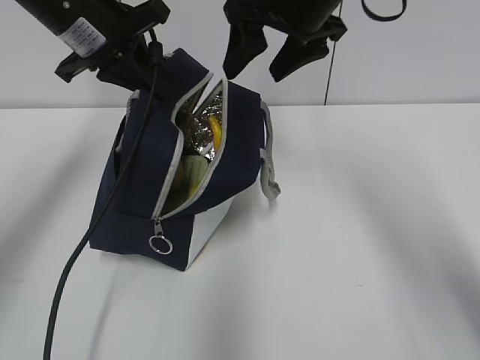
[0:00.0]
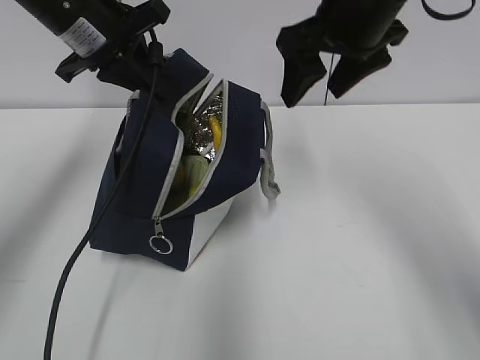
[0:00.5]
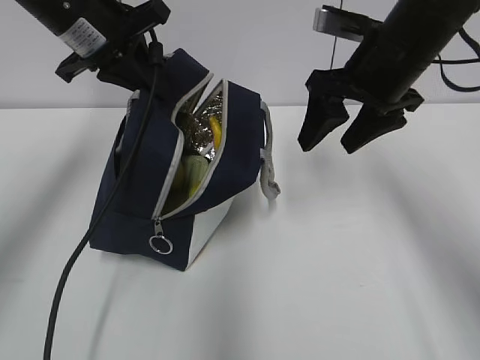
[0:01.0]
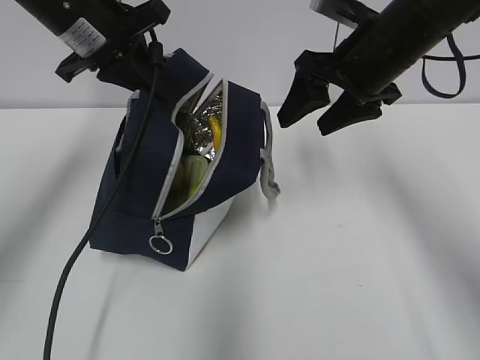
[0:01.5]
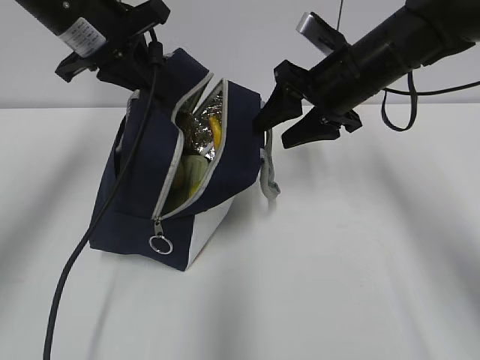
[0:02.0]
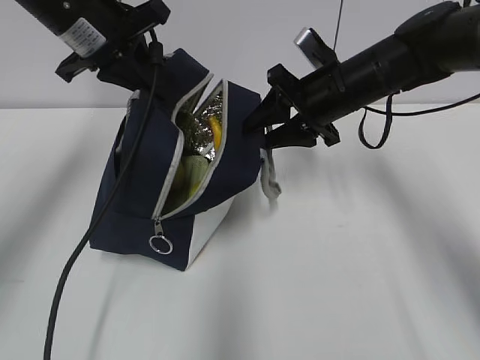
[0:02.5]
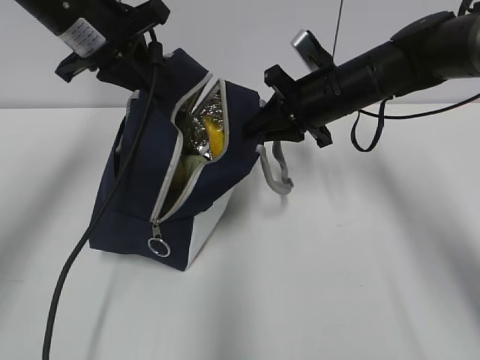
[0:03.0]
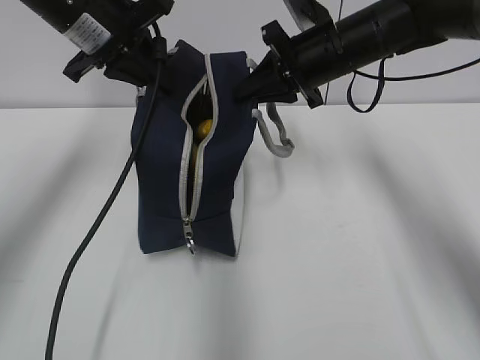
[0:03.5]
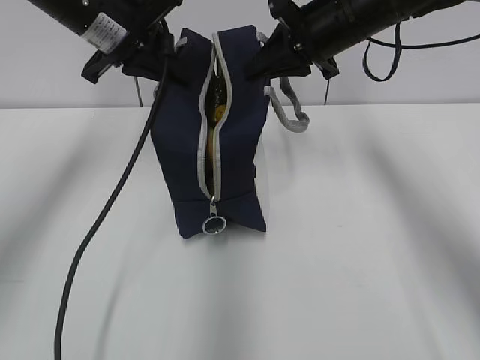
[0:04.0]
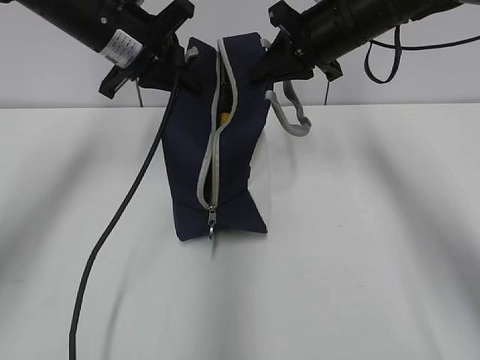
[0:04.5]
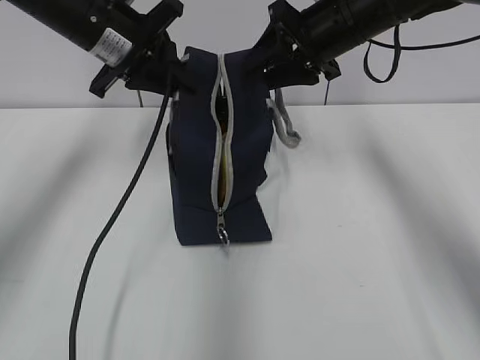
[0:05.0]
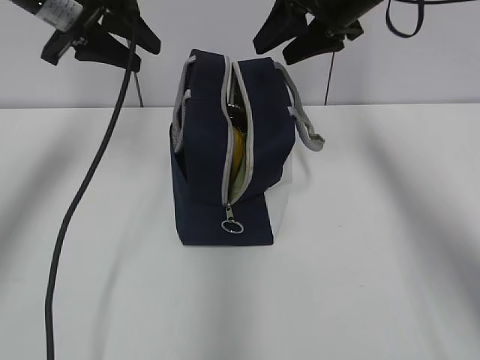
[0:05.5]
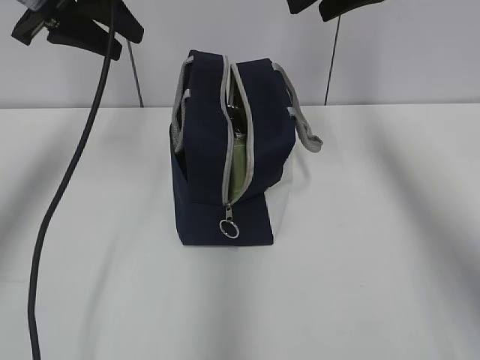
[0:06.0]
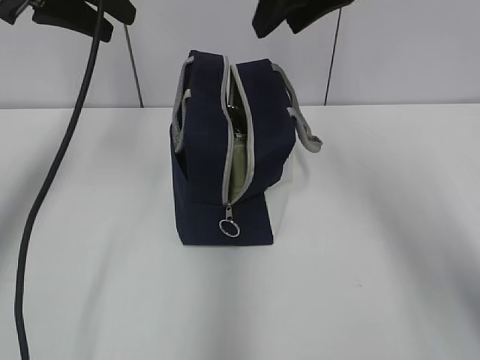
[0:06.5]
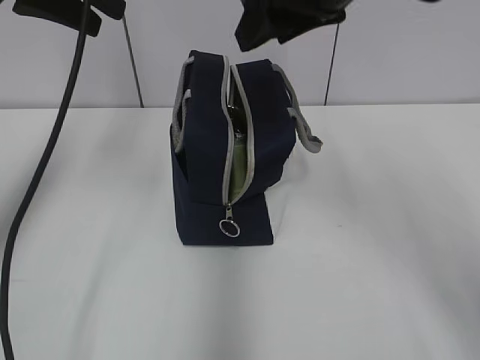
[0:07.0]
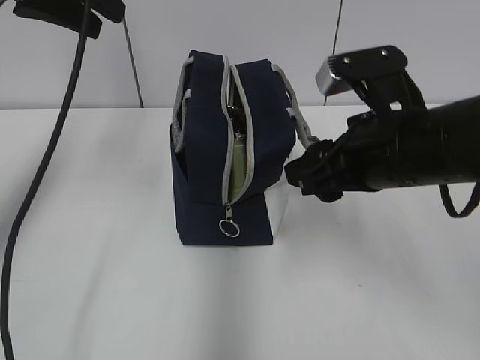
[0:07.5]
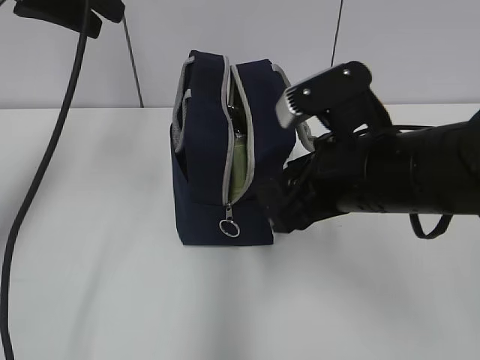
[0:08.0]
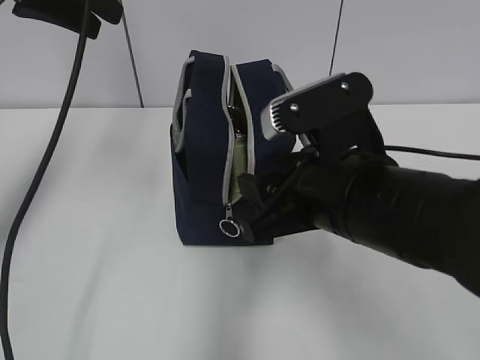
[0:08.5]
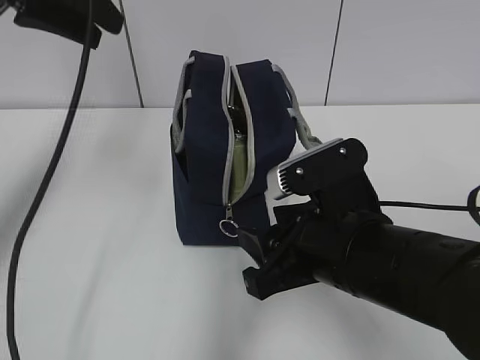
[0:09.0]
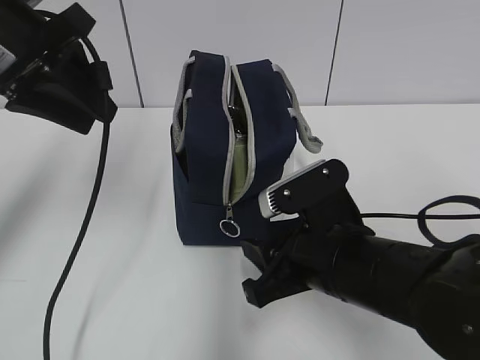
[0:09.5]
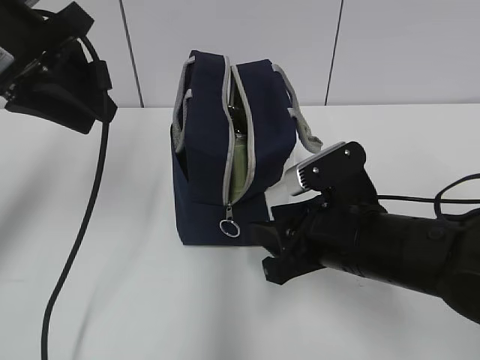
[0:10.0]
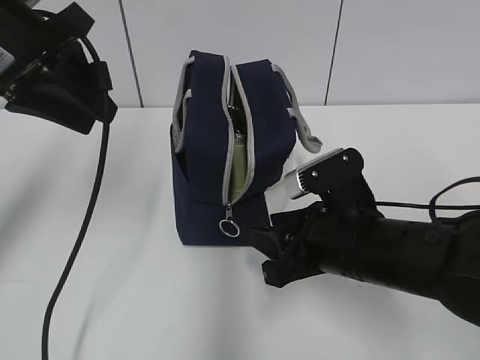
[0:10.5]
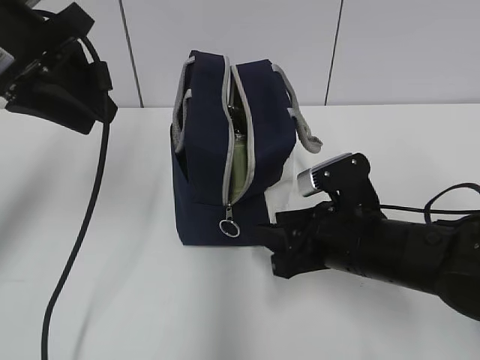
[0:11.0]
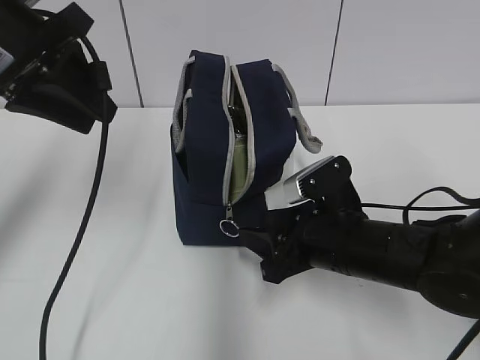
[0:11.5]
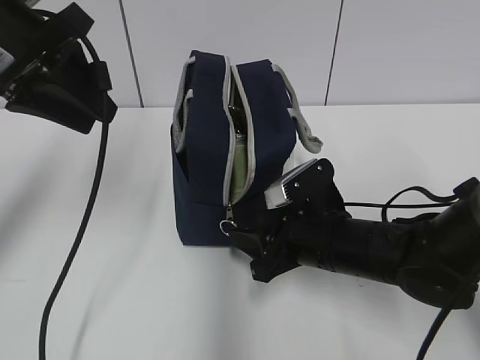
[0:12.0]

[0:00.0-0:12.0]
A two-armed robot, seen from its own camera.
Step, 0:00.0 to 0:03.0: Grab the lunch bag with your right hand.
Step, 0:03.5 to 0:05.0: Move the lunch bag to the right.
0:00.0 to 0:02.0: The right gripper goes roughly 10 cm downward and to the right.
0:02.0 to 0:04.0: The right gripper changes place by roughly 5 cm, and closes its fingers.
0:04.0 to 0:06.0: The right gripper goes roughly 10 cm upward, and opens its fingers. The left gripper heads to the left, covering roughly 5 cm, and opens up.
0:06.0 to 0:08.0: The right gripper shifts approximately 25 cm backward and downward, while the left gripper moves approximately 5 cm.
0:08.0 to 0:10.0: Both grippers move downward, about 5 cm.
0:10.0 to 0:12.0: The right gripper heads downward, covering about 5 cm.

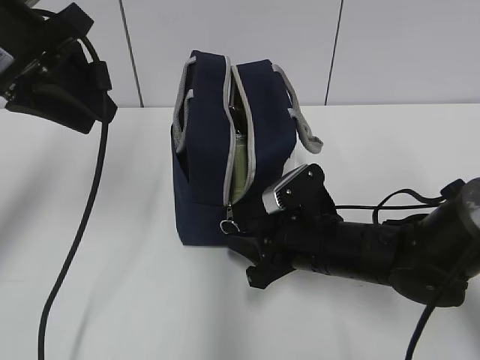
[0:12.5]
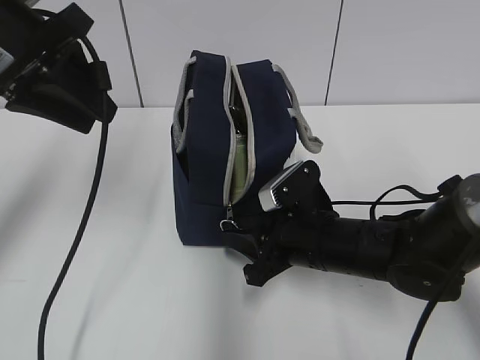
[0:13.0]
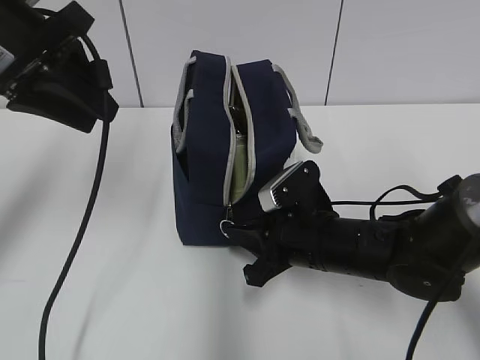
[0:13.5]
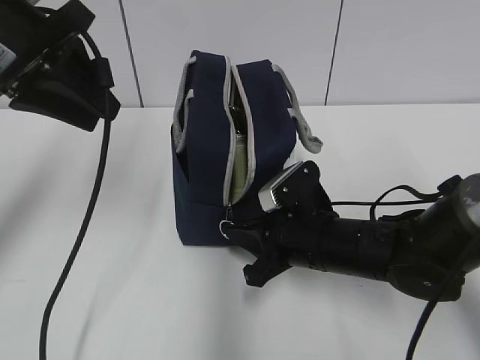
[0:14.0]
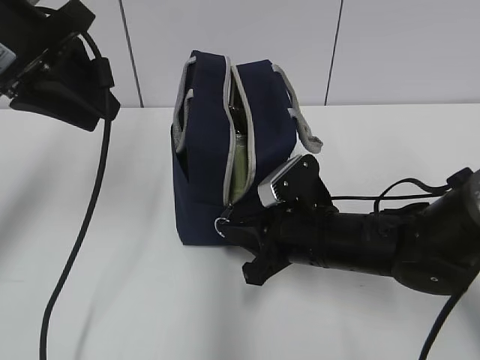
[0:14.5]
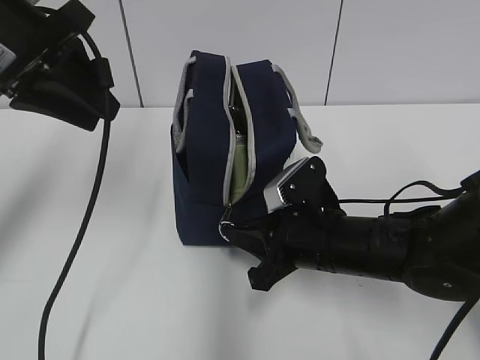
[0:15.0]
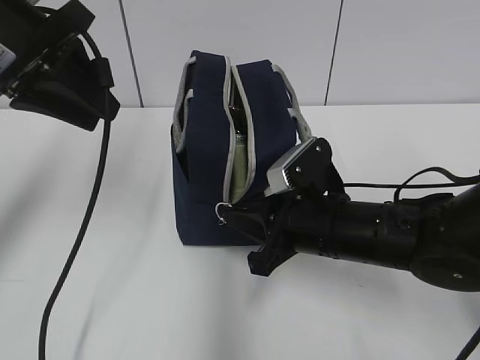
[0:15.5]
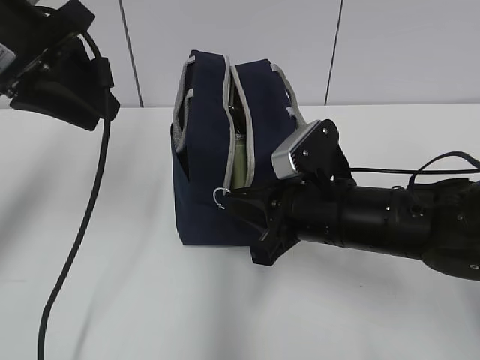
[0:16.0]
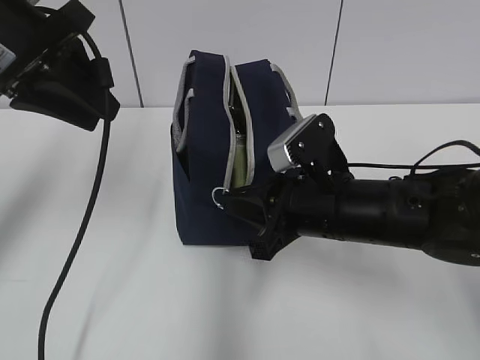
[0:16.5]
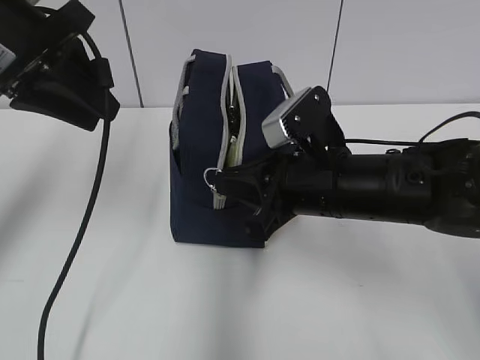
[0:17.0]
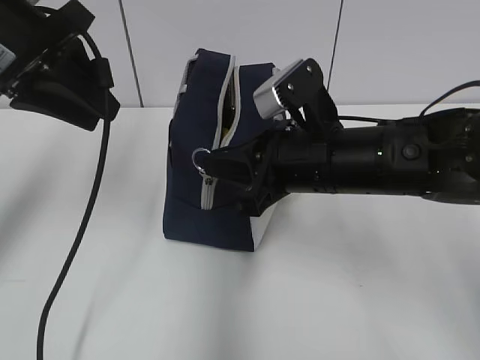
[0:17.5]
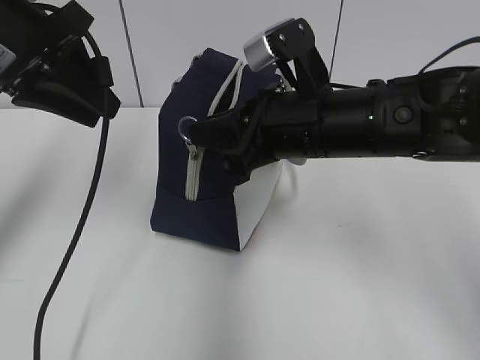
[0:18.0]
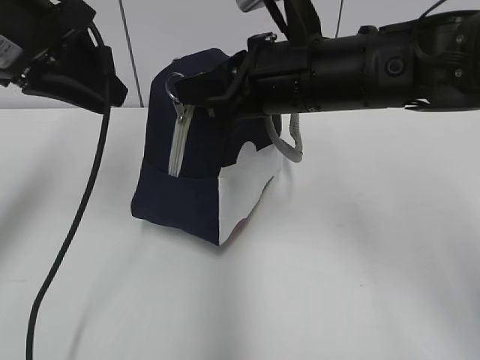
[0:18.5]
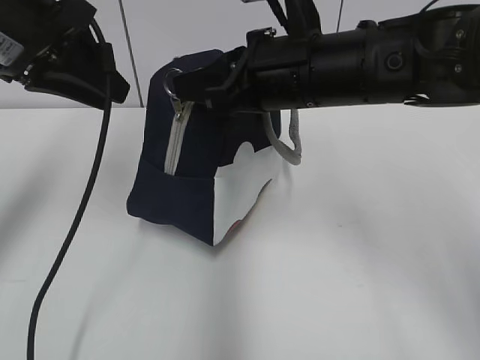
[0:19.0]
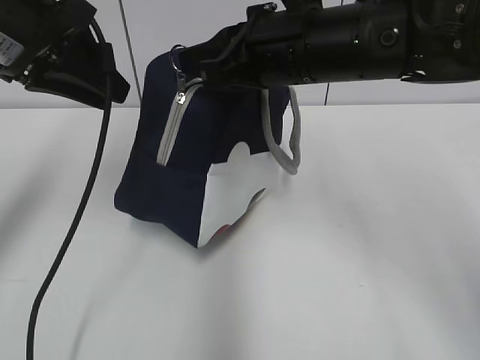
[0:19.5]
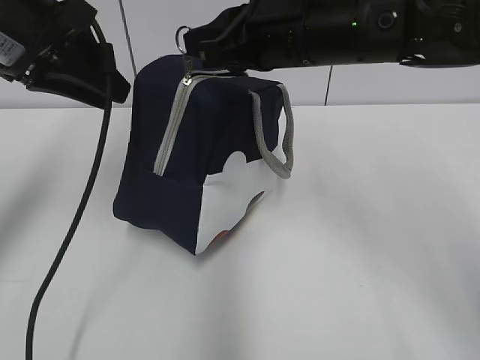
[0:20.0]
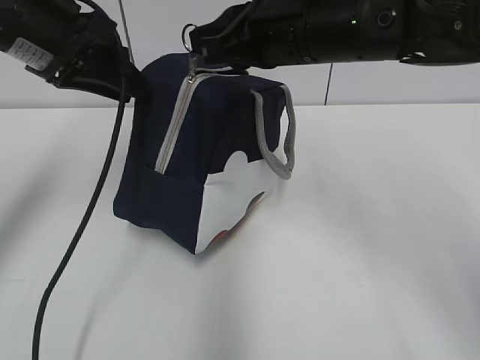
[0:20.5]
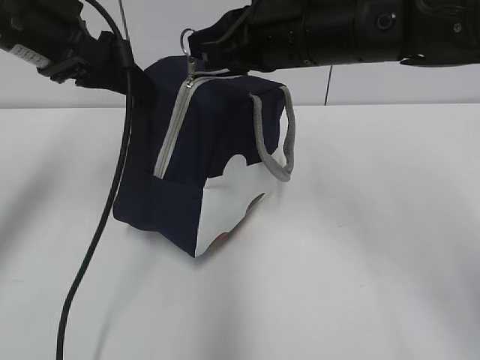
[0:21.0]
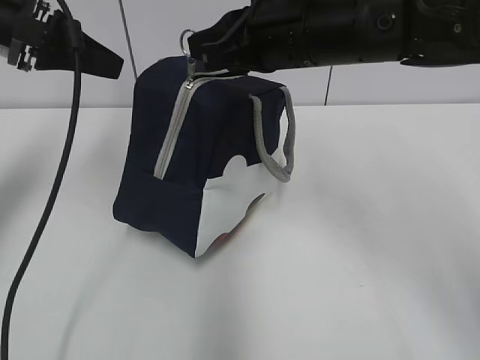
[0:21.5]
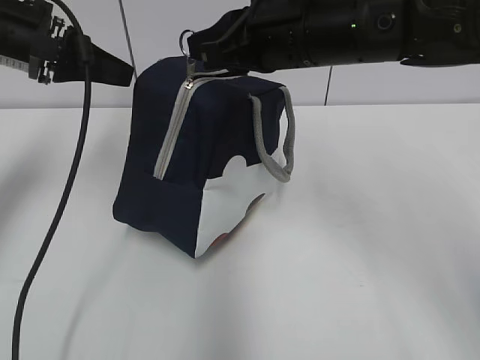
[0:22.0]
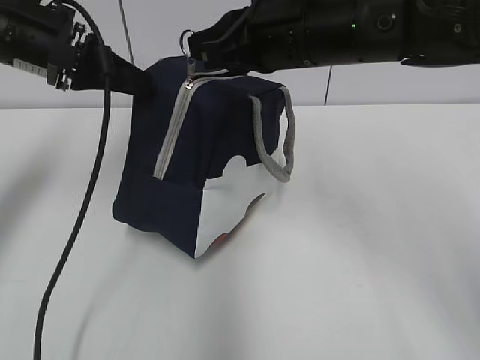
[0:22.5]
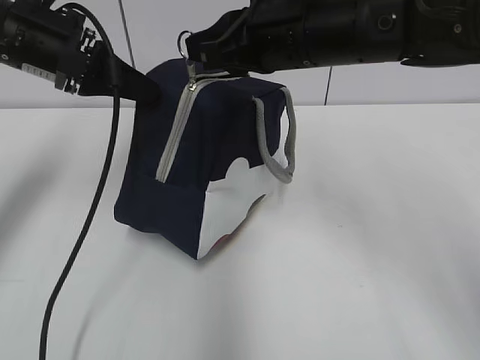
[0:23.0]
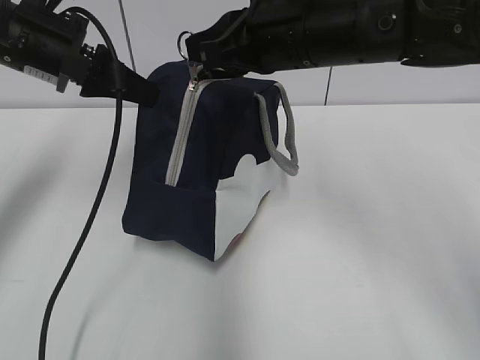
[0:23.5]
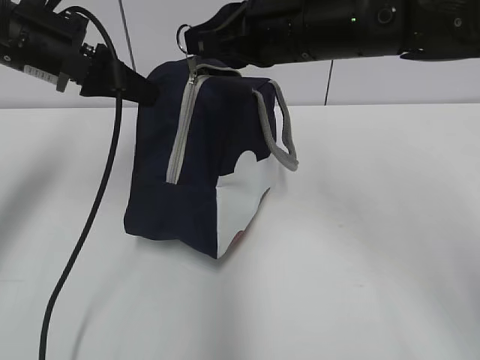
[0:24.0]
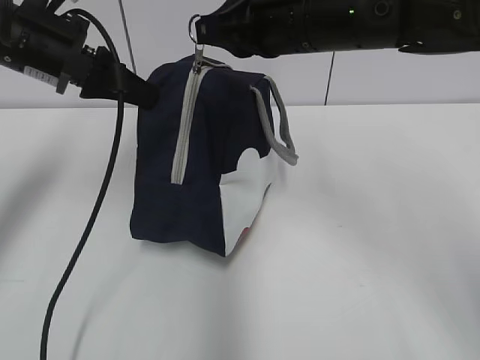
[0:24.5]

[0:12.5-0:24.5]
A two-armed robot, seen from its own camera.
0:12.5 to 0:14.5: The right gripper closes its fingers.
0:14.5 to 0:16.5: The right gripper goes some 5 cm upward.
0:16.5 to 0:18.5: The right gripper shifts approximately 10 cm upward.
0:22.5 to 0:24.5: The left gripper closes up.

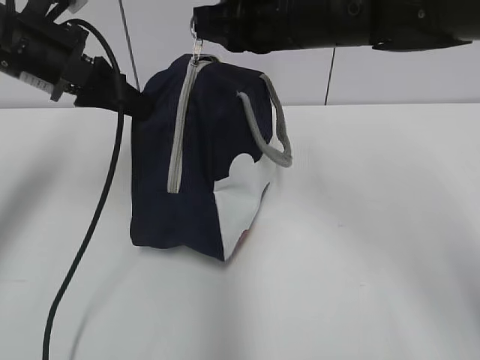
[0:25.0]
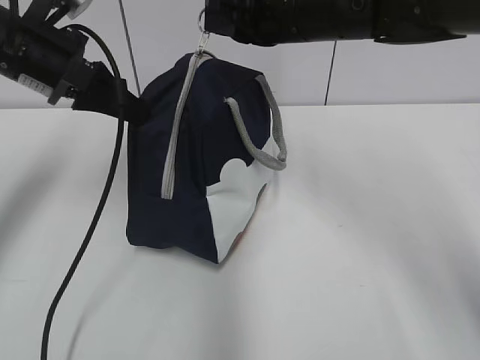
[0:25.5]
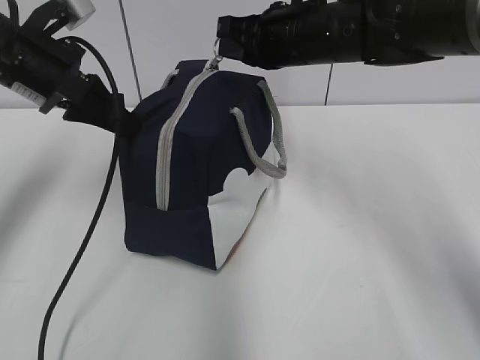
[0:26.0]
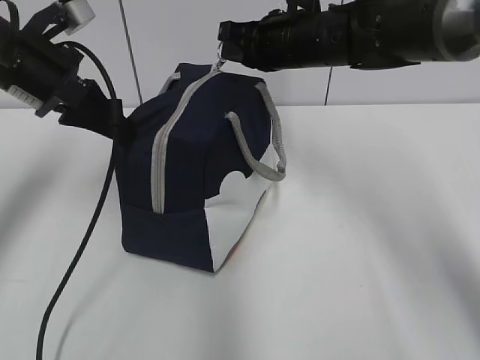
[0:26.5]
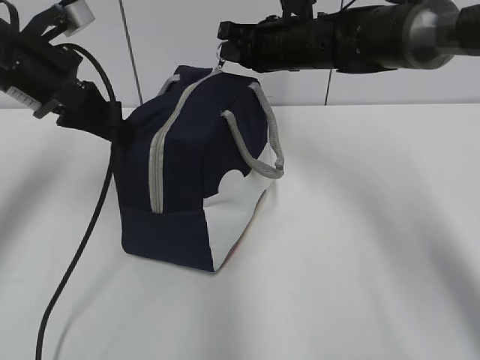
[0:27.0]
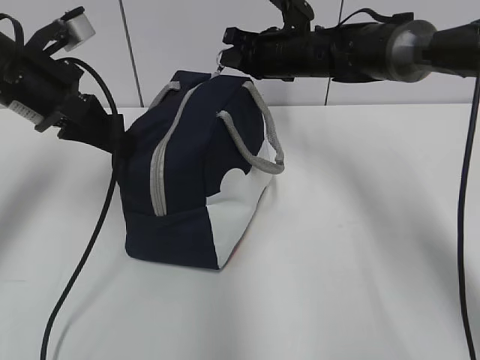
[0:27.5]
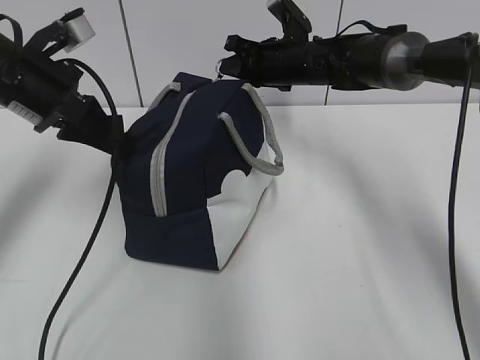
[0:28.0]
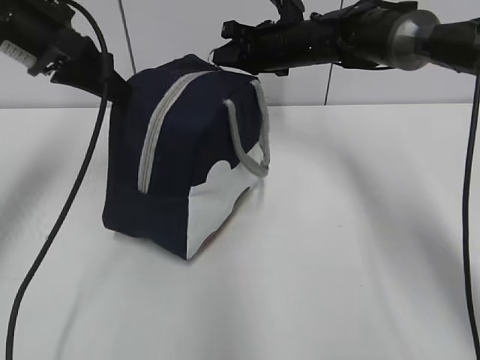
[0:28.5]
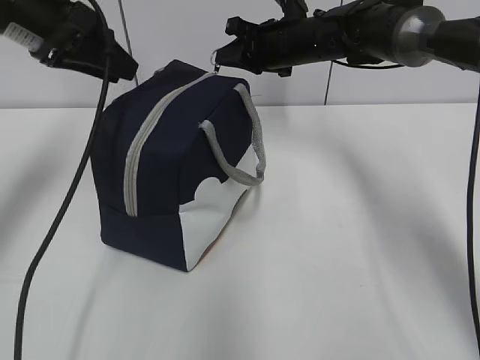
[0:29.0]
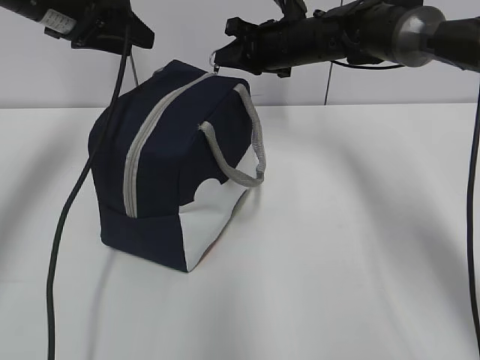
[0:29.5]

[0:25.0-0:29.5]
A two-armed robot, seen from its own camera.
0:25.0 to 0:27.0: The right gripper is displaced forward and downward by about 15 cm.
0:27.0 to 0:29.5: The left gripper travels forward by approximately 5 cm, and opens its fingers.
